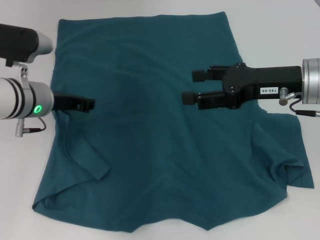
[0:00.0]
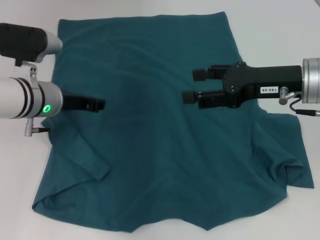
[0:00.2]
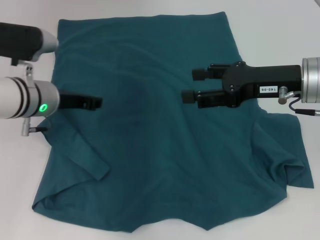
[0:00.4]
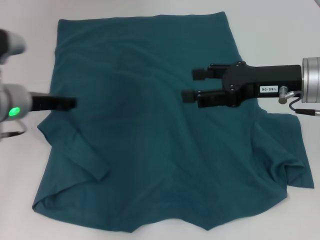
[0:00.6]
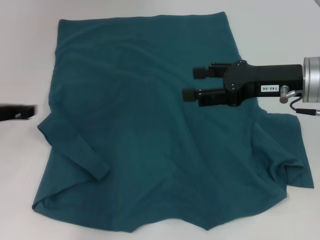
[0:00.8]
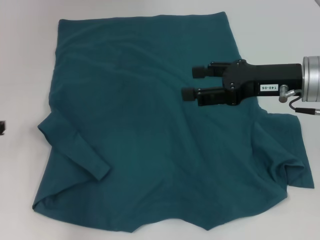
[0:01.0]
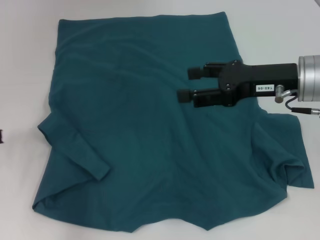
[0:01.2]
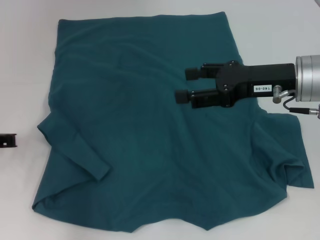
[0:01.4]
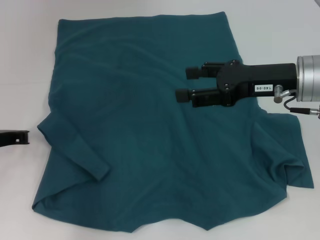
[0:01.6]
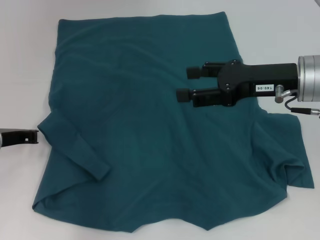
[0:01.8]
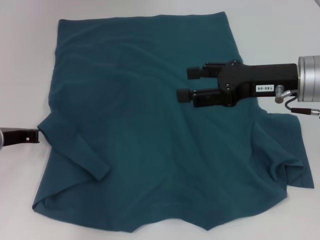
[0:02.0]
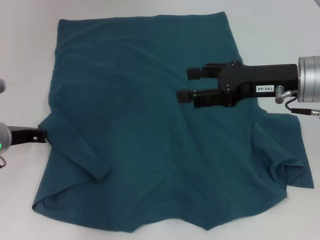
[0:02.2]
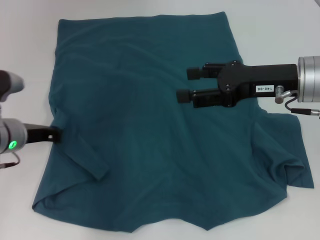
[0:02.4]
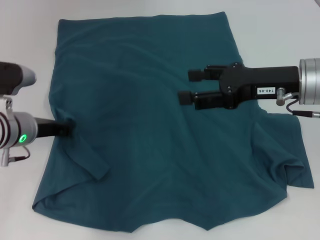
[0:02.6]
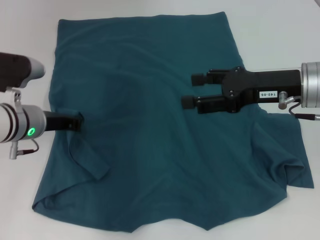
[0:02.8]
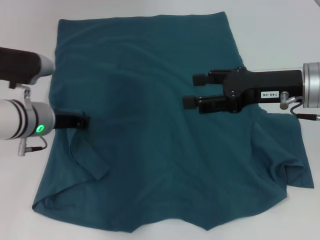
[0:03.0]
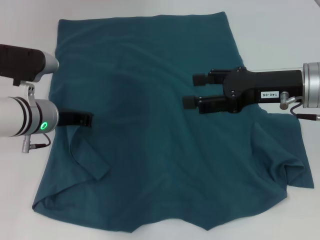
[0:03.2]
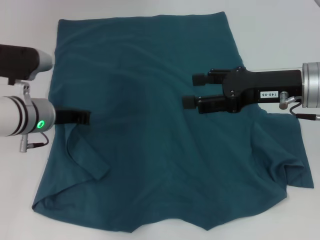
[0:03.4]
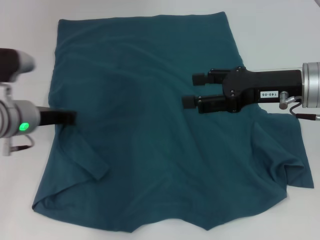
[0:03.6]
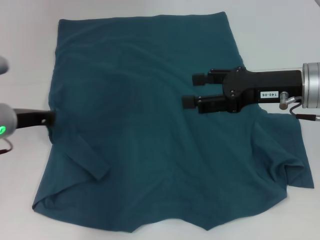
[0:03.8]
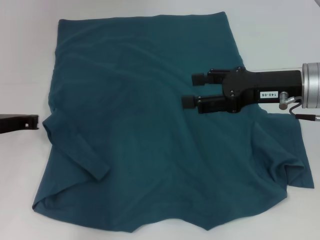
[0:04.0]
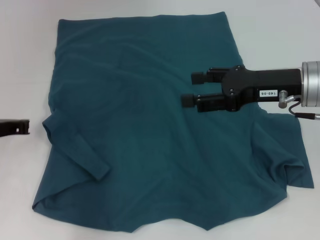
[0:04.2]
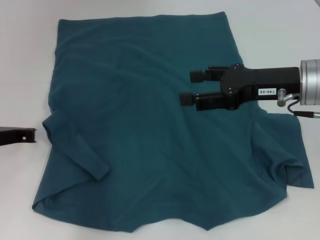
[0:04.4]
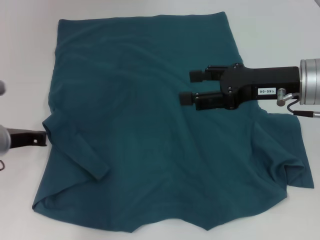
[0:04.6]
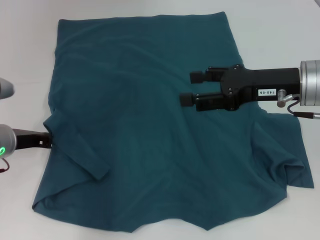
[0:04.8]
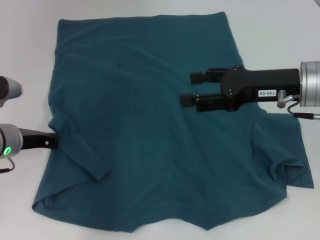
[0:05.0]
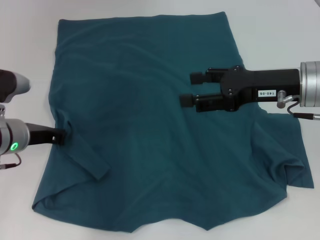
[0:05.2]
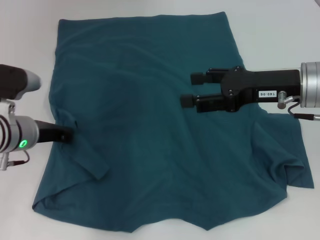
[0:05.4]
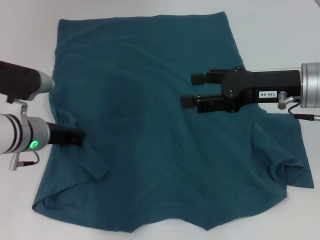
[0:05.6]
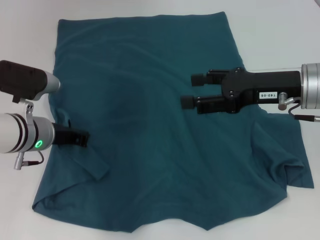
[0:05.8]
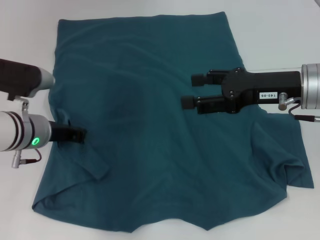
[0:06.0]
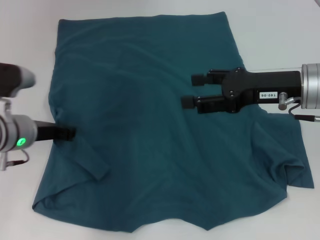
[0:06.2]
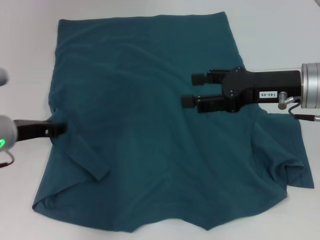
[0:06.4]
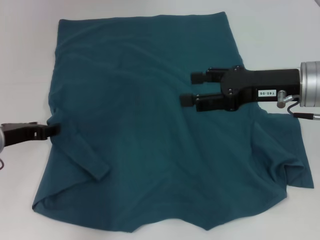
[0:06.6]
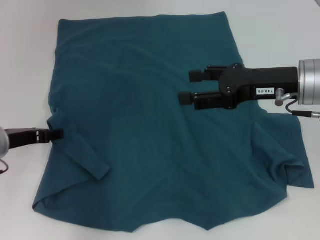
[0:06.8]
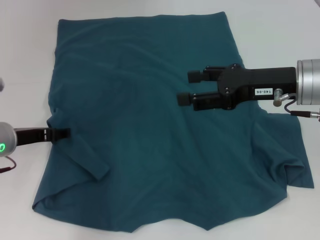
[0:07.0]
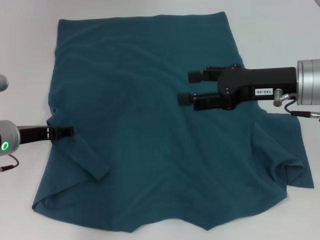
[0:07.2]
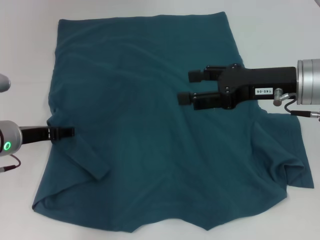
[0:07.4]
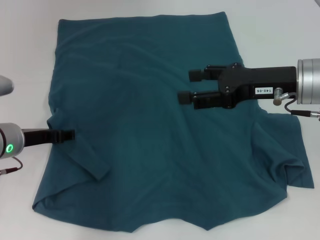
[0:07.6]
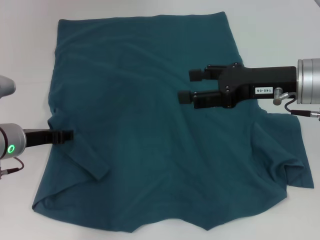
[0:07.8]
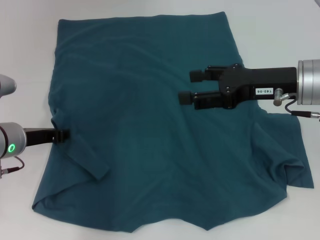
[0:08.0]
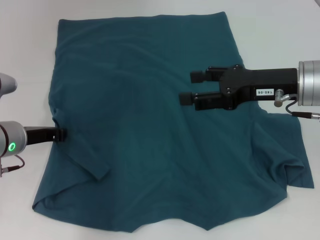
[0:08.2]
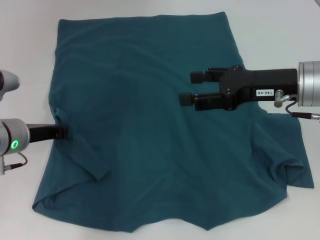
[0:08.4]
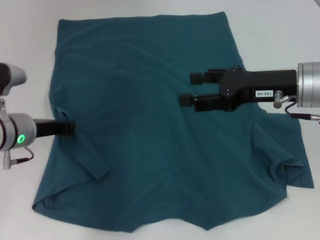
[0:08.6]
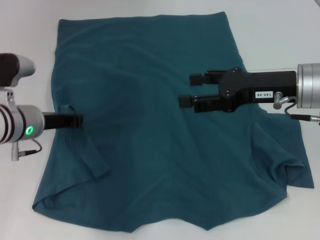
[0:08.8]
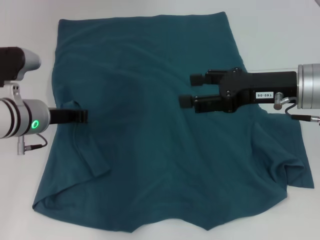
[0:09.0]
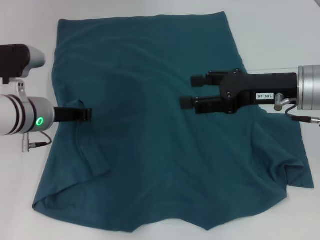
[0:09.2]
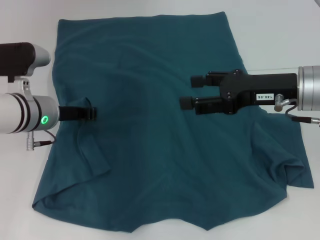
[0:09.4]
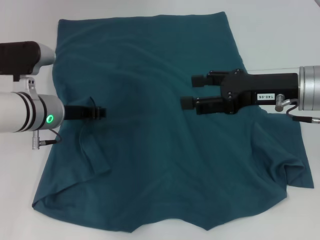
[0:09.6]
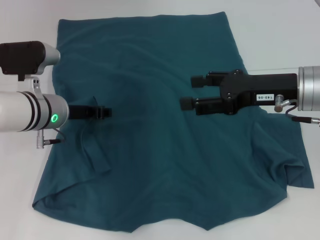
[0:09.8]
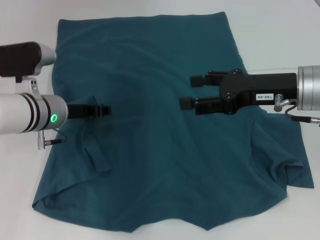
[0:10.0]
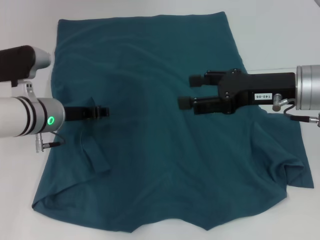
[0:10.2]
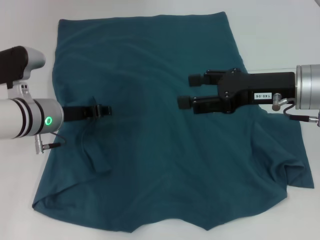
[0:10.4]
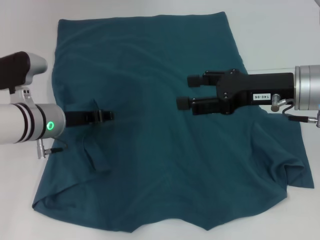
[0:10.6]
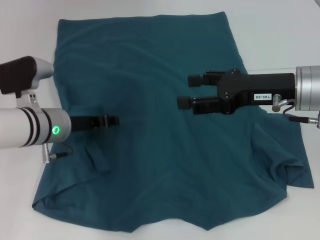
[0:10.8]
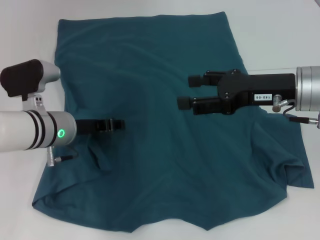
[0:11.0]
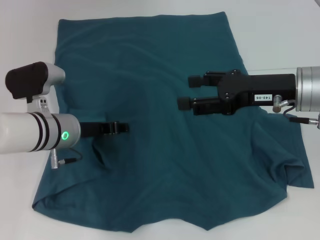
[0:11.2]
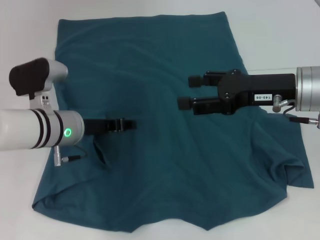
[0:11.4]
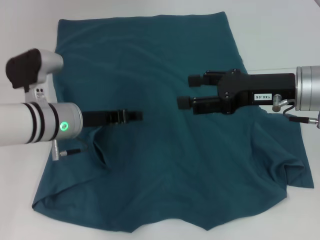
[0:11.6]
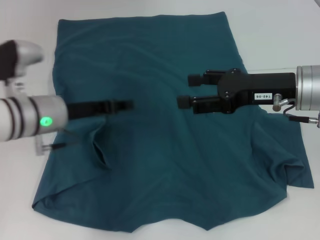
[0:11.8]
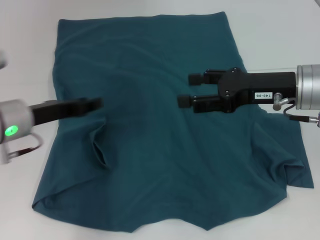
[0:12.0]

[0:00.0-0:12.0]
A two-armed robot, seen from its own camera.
0:00.0 to 0:01.6: The left gripper shifts roughly 10 cm to the left.
0:01.6 to 0:03.0: The left gripper is displaced to the right by approximately 10 cm.
0:03.0 to 0:04.4: The left gripper shifts roughly 10 cm to the left.
0:04.4 to 0:06.0: The left gripper heads to the right, covering about 5 cm.
0:06.0 to 0:07.6: The left gripper opens up.
0:07.6 to 0:09.0: The left gripper moves approximately 5 cm, and closes.
0:09.0 to 0:10.4: The left gripper opens its fingers.
0:10.4 to 0:12.0: The left gripper ends up approximately 5 cm from where it was.

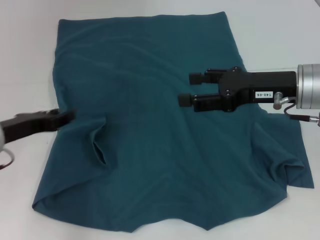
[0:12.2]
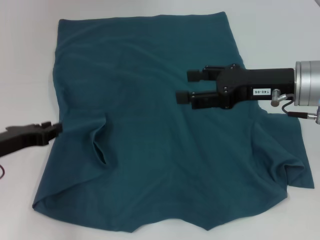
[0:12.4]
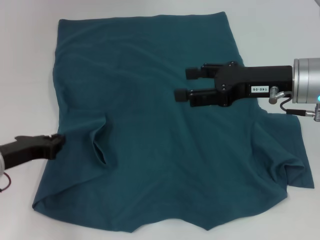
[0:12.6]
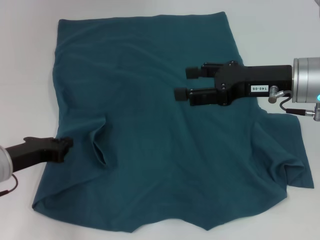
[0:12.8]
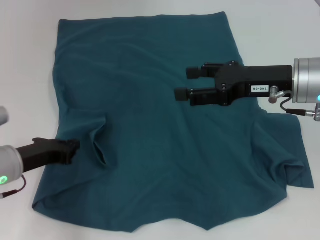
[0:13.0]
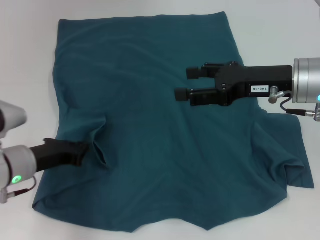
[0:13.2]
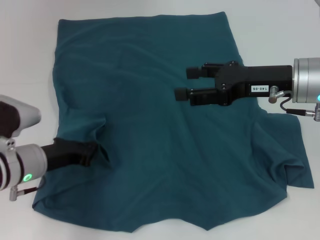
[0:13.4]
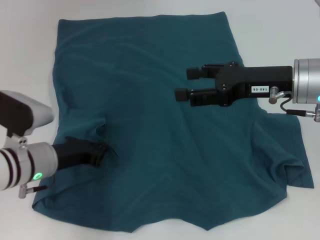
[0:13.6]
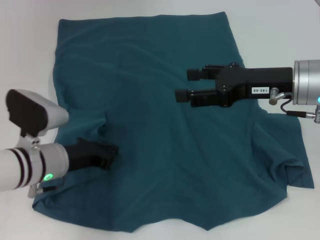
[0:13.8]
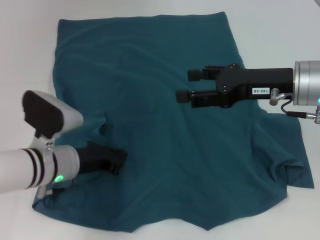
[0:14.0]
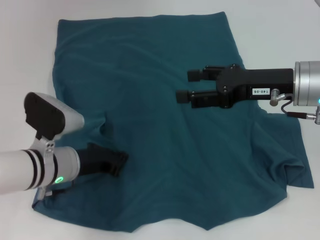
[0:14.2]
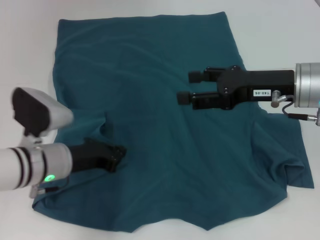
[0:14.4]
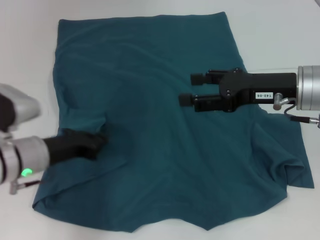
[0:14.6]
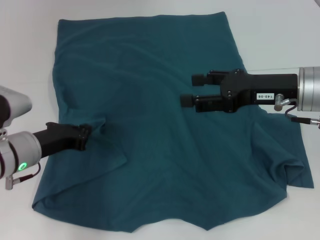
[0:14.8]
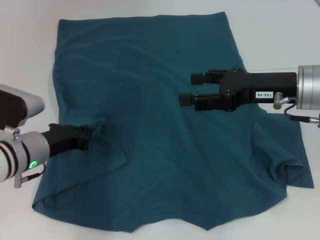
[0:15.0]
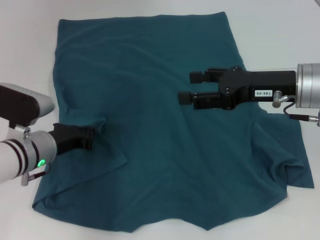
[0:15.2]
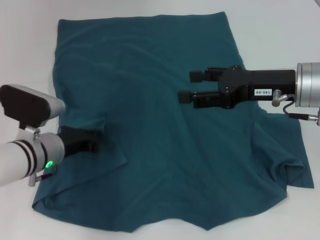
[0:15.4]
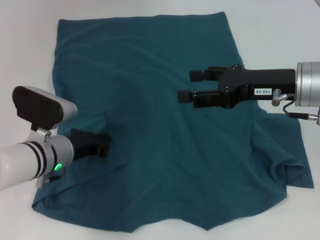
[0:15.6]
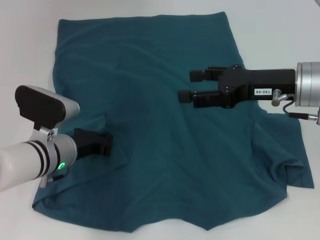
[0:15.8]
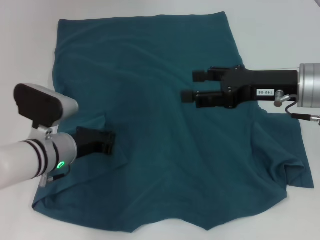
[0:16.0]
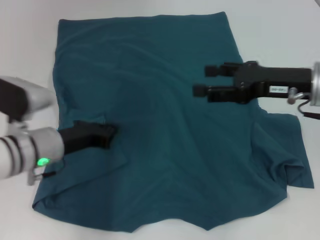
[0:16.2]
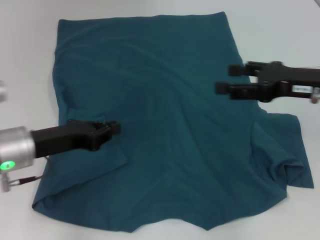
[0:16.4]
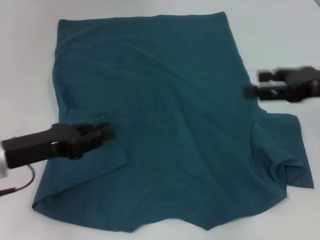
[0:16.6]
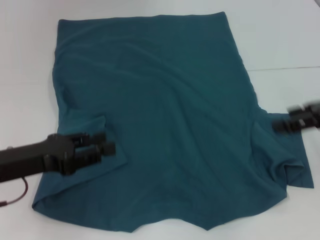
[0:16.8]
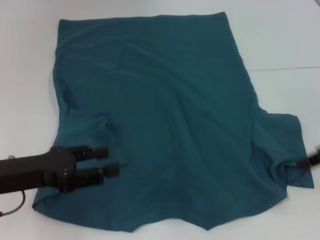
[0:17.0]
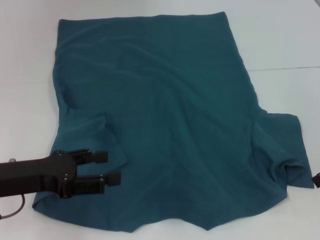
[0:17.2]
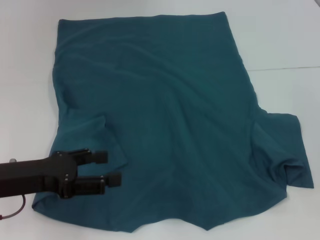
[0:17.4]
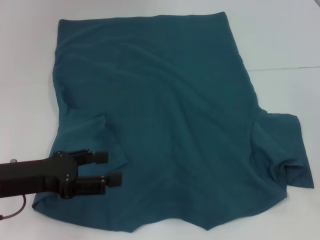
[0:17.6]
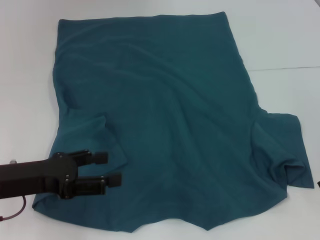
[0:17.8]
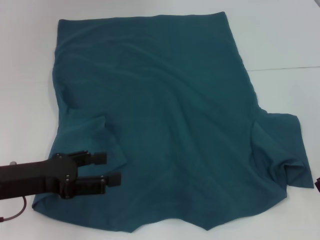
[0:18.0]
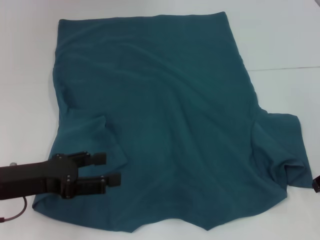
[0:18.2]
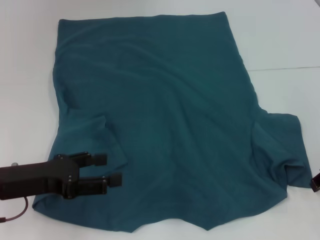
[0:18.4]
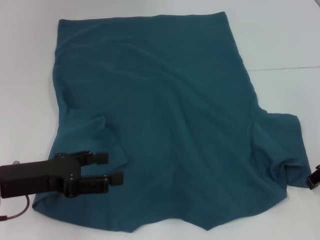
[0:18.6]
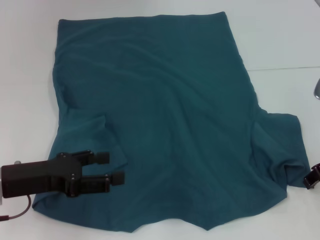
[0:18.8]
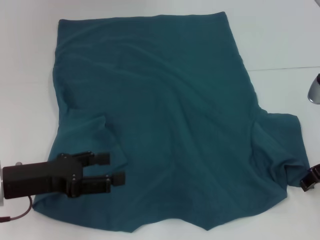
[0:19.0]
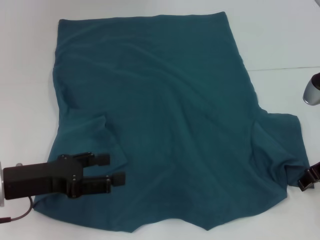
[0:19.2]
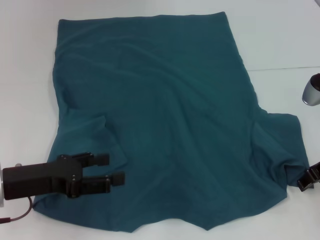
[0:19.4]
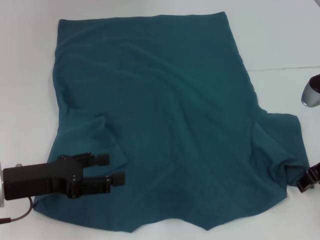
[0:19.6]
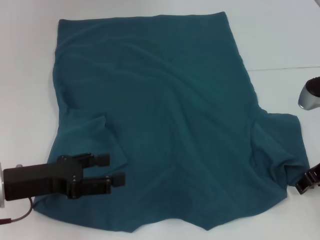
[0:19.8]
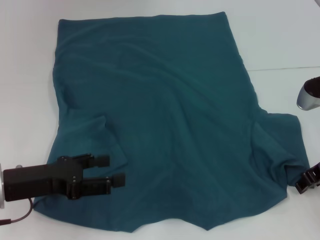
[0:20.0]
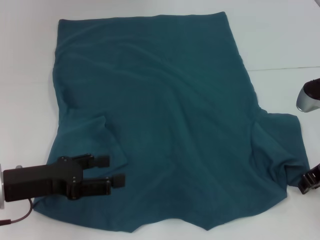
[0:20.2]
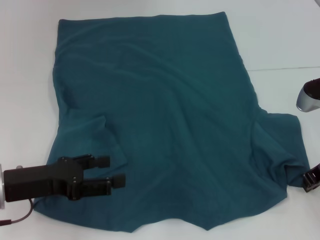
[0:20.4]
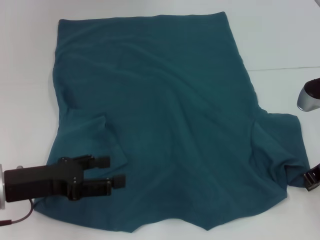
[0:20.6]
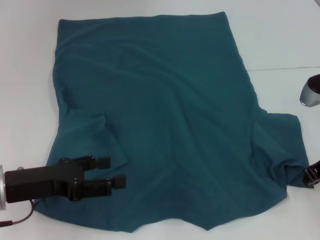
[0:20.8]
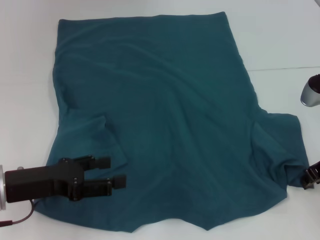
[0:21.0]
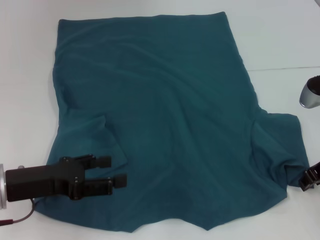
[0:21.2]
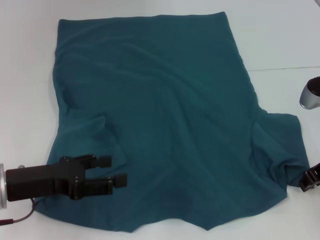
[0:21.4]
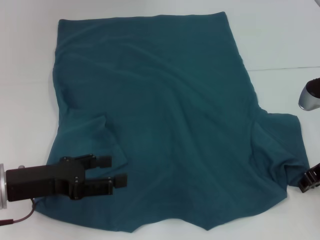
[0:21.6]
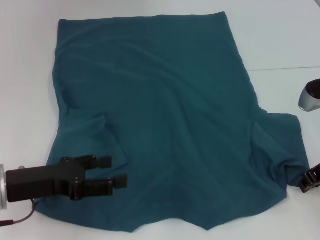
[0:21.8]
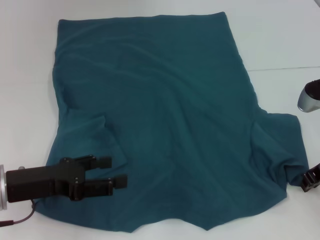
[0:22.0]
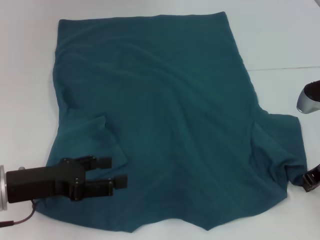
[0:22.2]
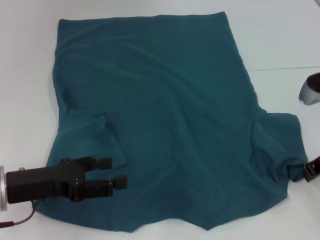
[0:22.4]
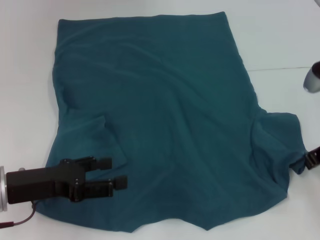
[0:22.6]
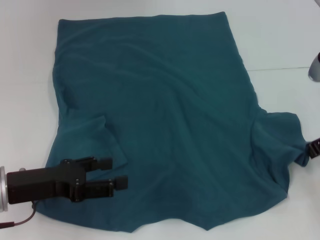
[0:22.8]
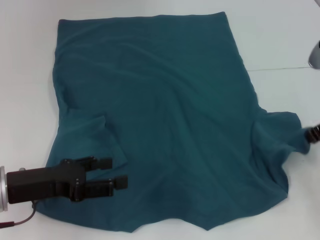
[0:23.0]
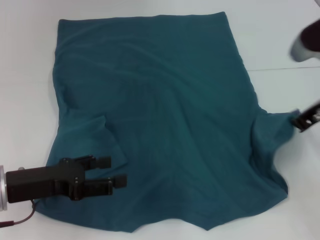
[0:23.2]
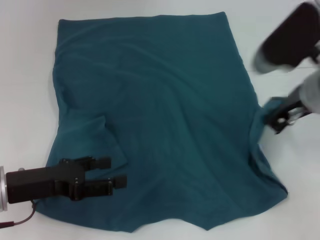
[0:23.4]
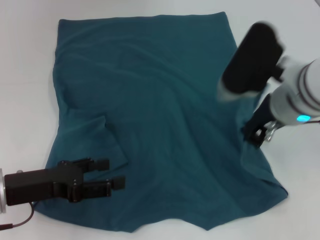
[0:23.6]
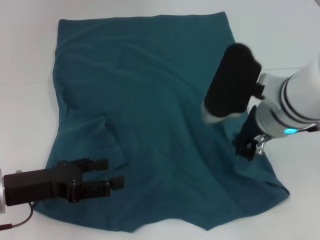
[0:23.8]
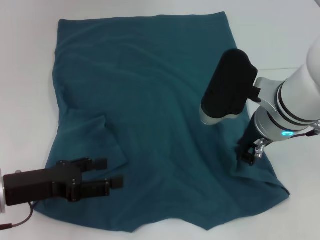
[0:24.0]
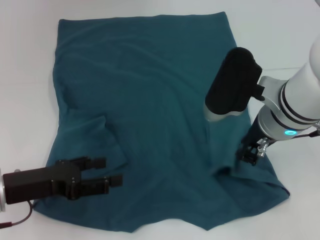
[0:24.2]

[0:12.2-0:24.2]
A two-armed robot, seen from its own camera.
Step, 0:12.2 to 0:16.6: Fold the bottom left sleeve with your left hand.
0:12.2 to 0:13.8: The left gripper shifts about 10 cm to the right, and closes.
0:13.8 to 0:15.2: The grippers stay close to where they were, moving slightly.
0:15.2 to 0:16.6: The left gripper shifts approximately 10 cm upward and backward. The right gripper shifts approximately 5 cm to the right.
0:16.6 to 0:18.2: The left gripper opens up. The right gripper shifts some 5 cm downward.
0:18.2 to 0:19.8: The grippers stay close to where they were, moving slightly.
0:19.8 to 0:21.2: Both grippers stay about where they are.
0:21.2 to 0:22.6: The grippers make only small movements.
0:22.6 to 0:24.2: The right gripper moves to the left, about 15 cm.
